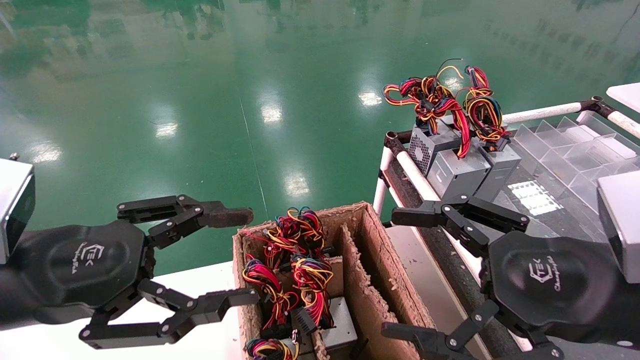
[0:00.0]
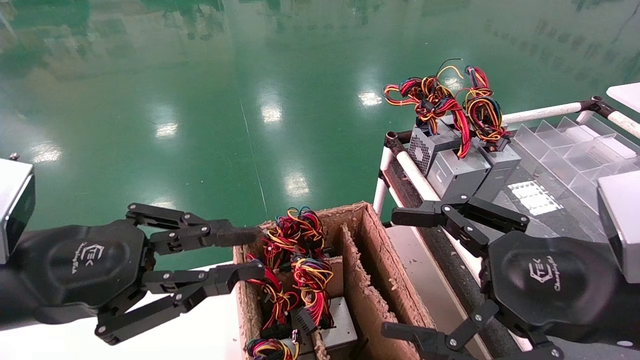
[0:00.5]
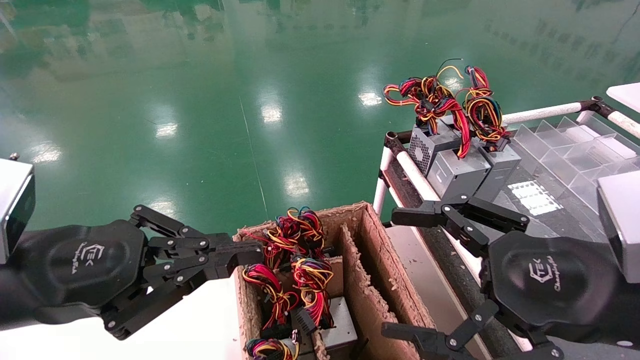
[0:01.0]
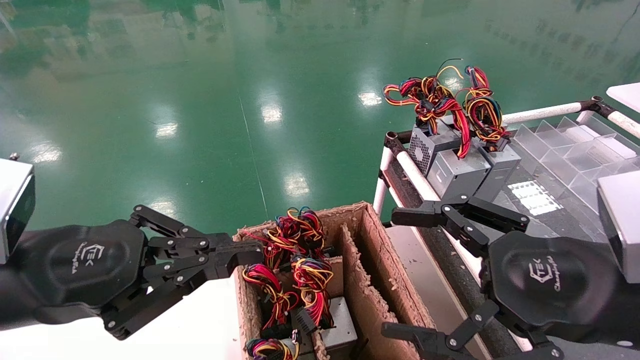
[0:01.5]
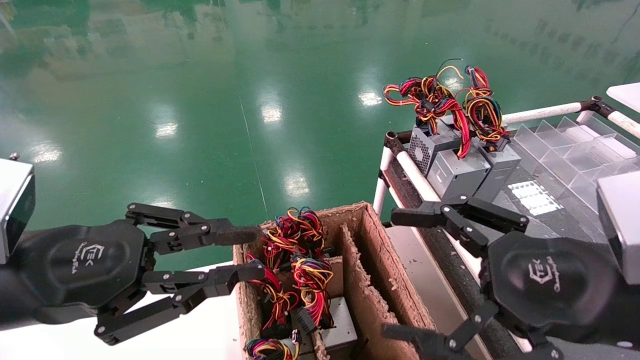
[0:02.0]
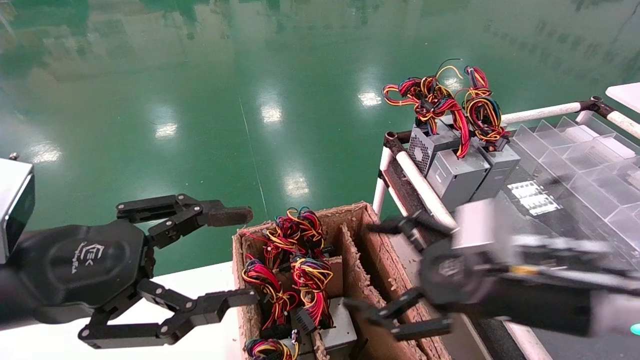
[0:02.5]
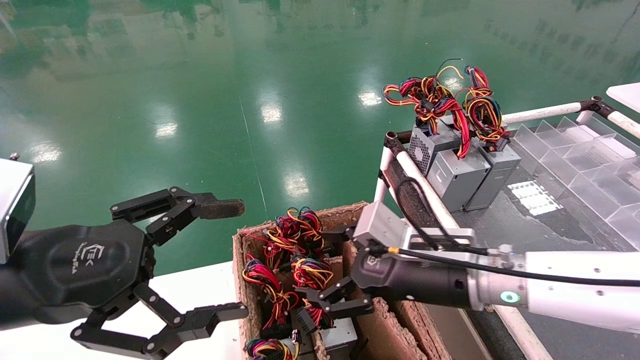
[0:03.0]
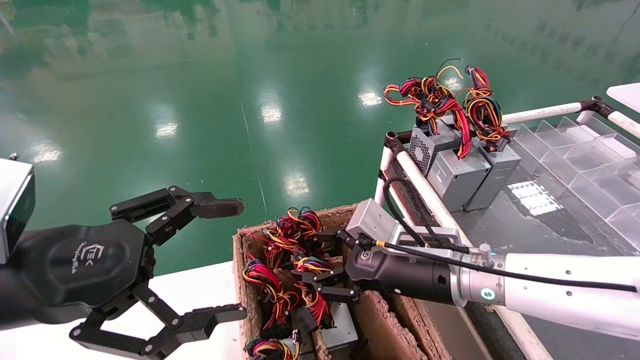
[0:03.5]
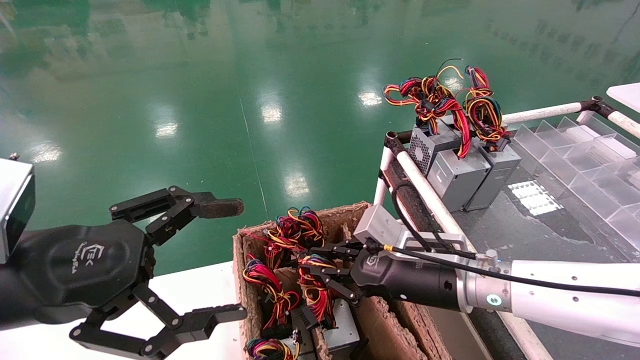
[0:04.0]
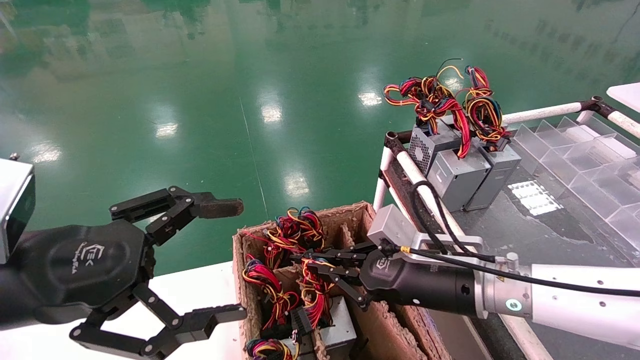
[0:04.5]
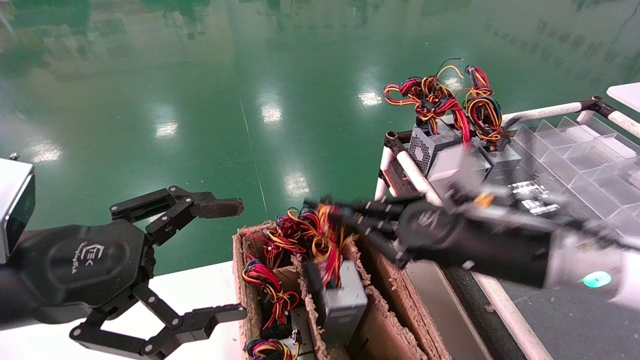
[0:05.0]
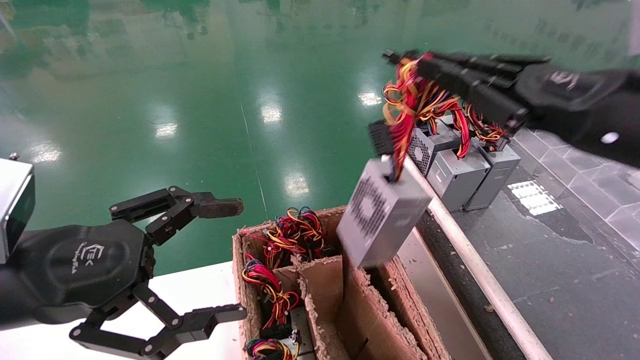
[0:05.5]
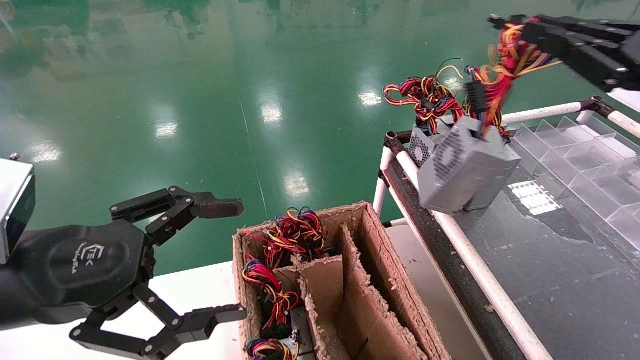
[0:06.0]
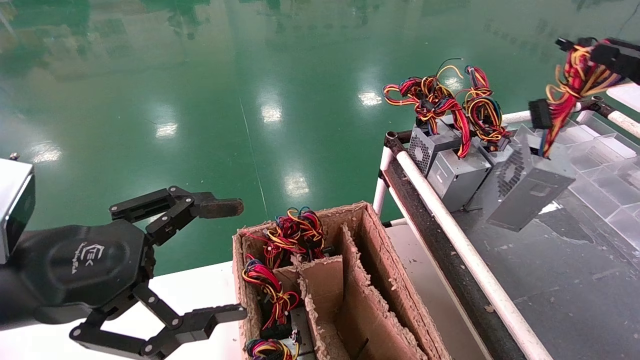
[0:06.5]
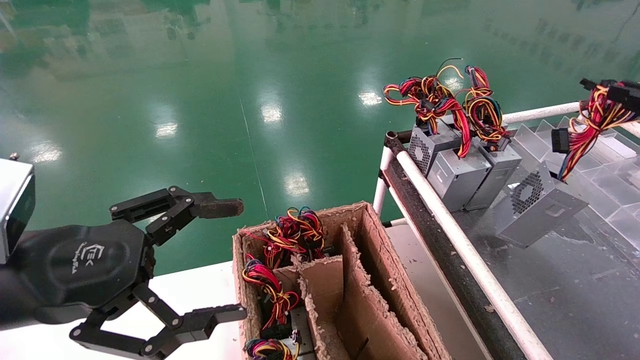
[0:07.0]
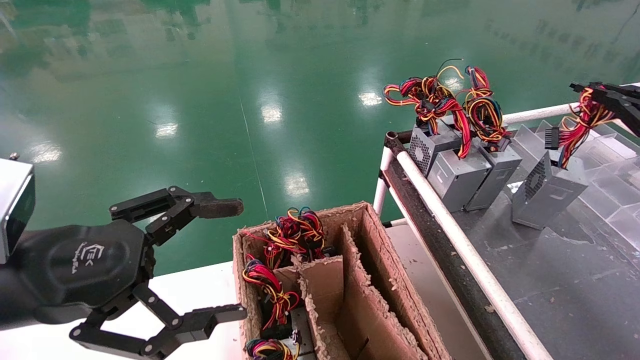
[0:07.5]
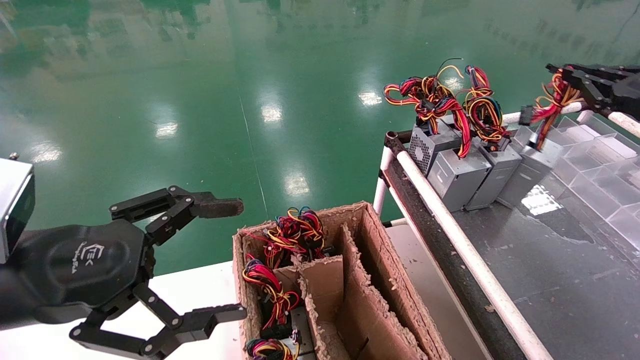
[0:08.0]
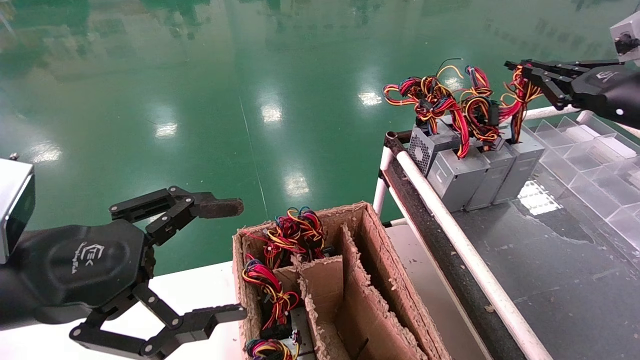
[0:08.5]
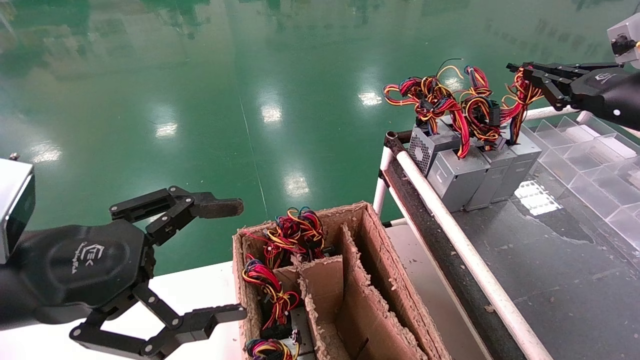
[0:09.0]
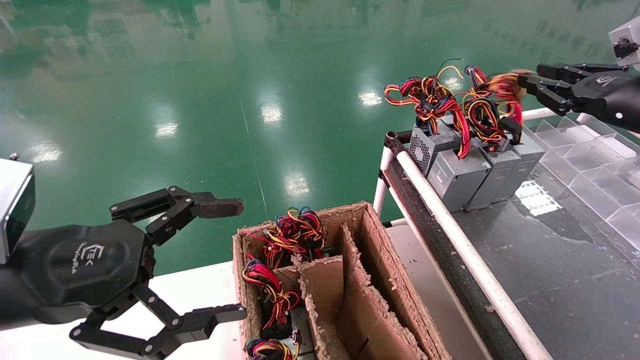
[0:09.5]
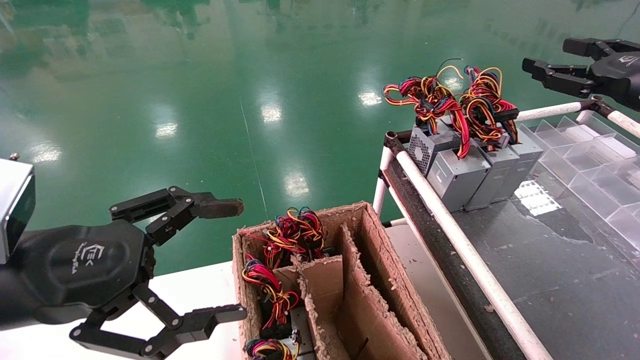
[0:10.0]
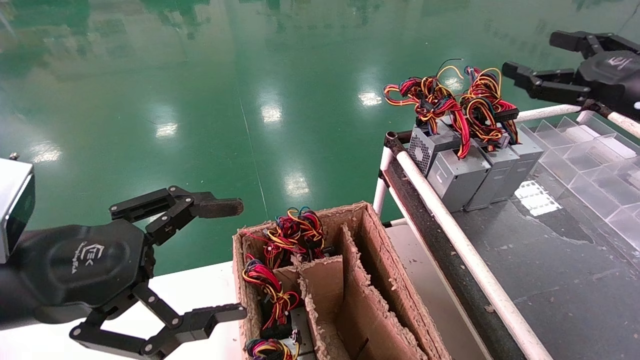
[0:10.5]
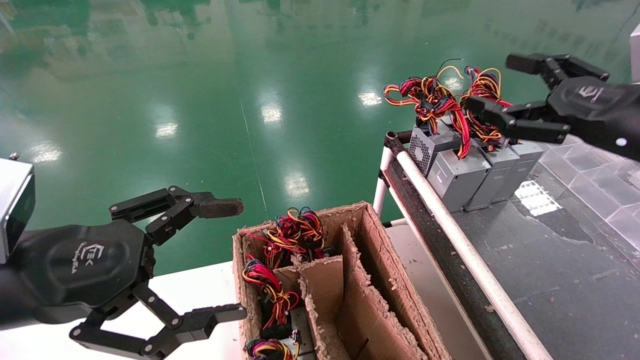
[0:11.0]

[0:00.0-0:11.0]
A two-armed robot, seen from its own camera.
Step, 0:01.5 to 0:04.5: Grab and lift the power supply from the large box.
Step, 0:05.0 to 0:09.5: Place the power supply on the operating table.
0:00.0 to 0:02.0: The left gripper closes.
0:02.0 to 0:03.5: The right gripper moves forward, to the left and downward, some 20 cm; the left gripper opens its fingers.
0:03.5 to 0:05.5: The right gripper goes roughly 25 cm upward and to the right, and closes its fingers.
0:05.5 to 0:07.5: The right gripper travels to the right by about 20 cm.
0:07.5 to 0:09.0: The right gripper moves to the left and forward, about 10 cm.
0:09.0 to 0:11.0: The right gripper goes some 10 cm backward and to the left, and opens.

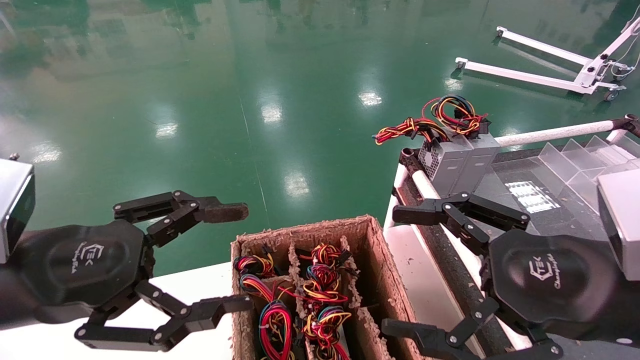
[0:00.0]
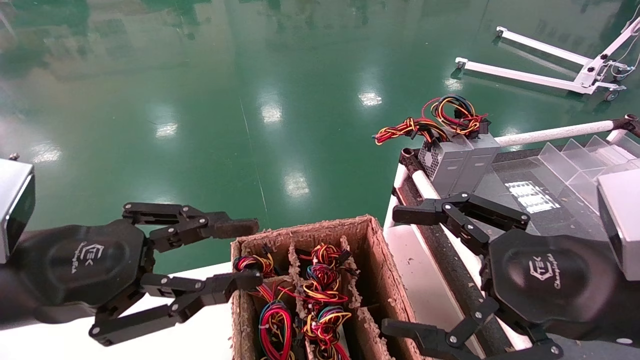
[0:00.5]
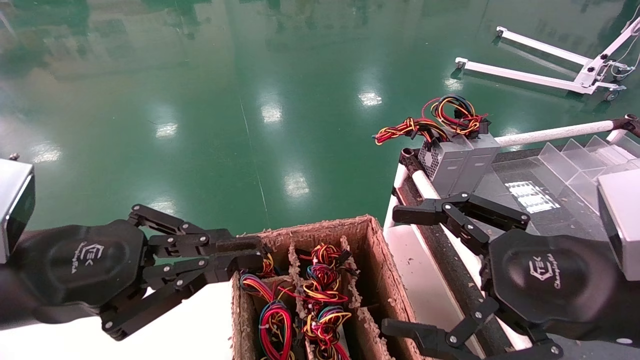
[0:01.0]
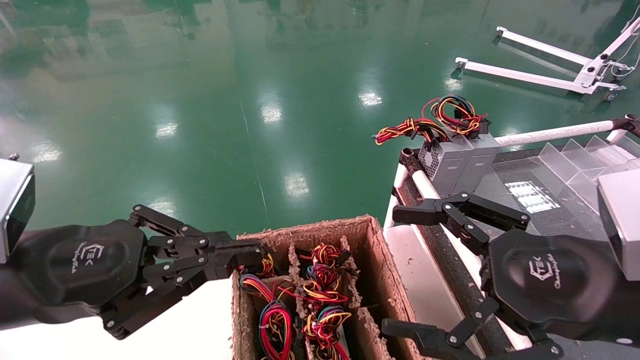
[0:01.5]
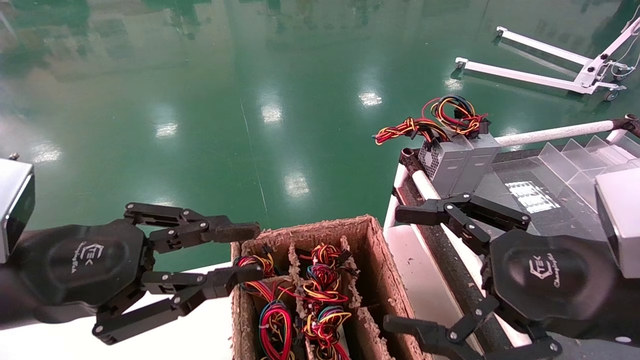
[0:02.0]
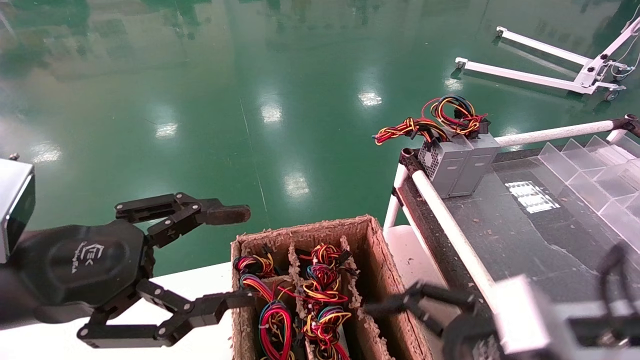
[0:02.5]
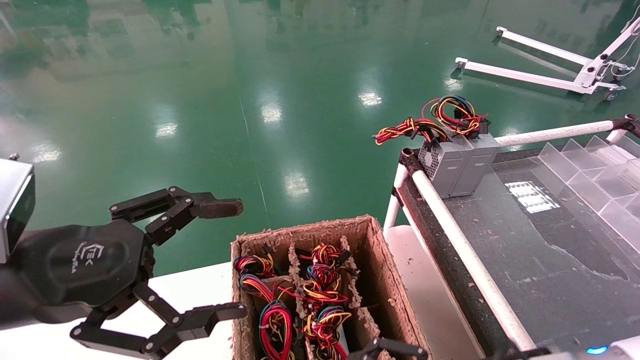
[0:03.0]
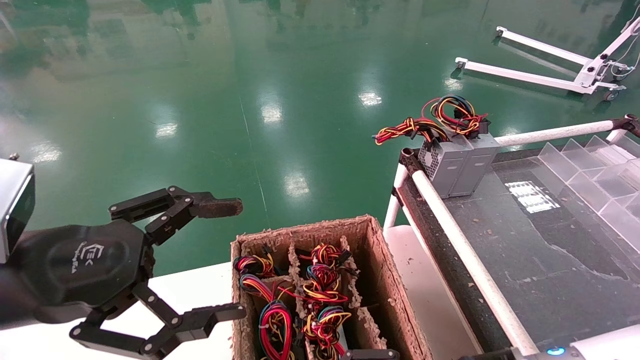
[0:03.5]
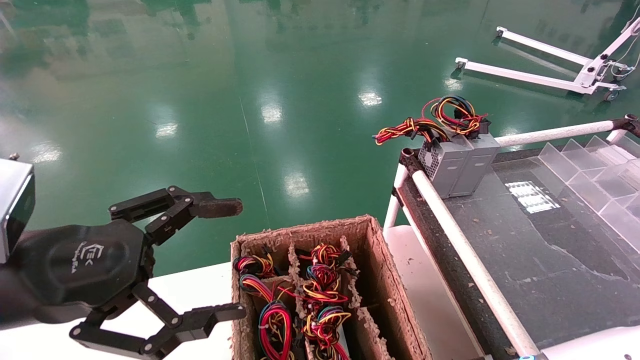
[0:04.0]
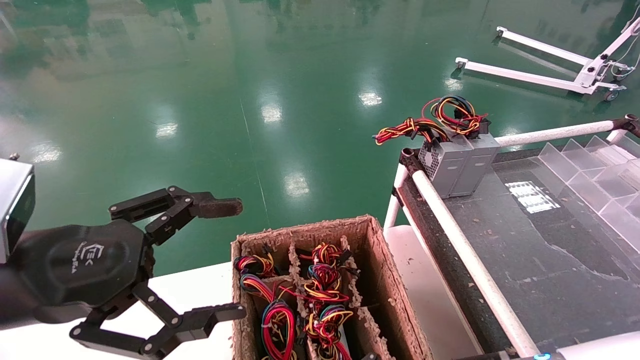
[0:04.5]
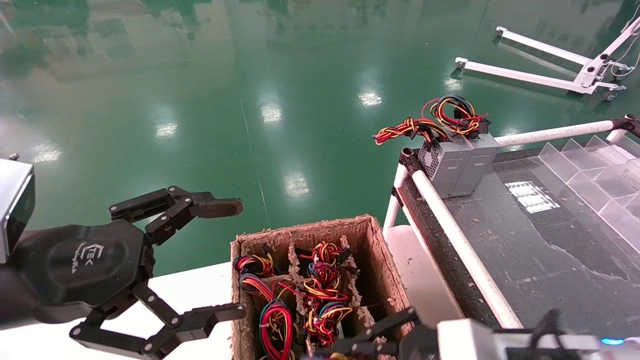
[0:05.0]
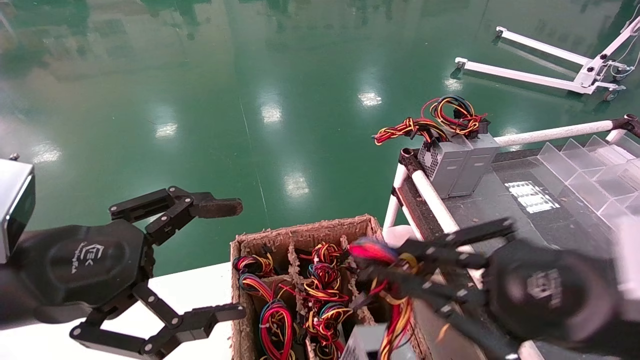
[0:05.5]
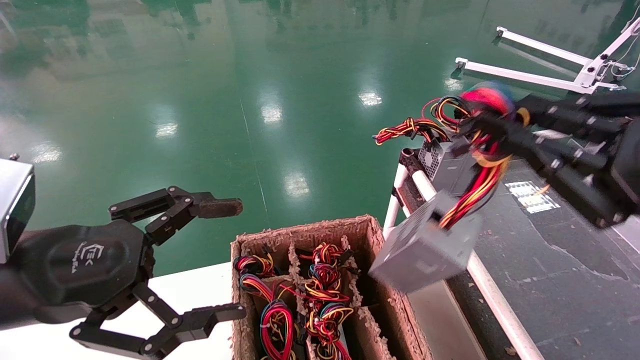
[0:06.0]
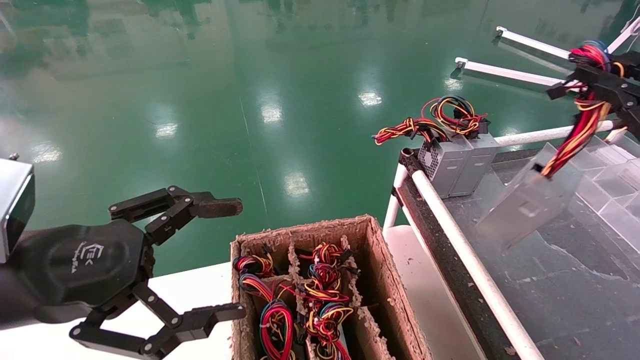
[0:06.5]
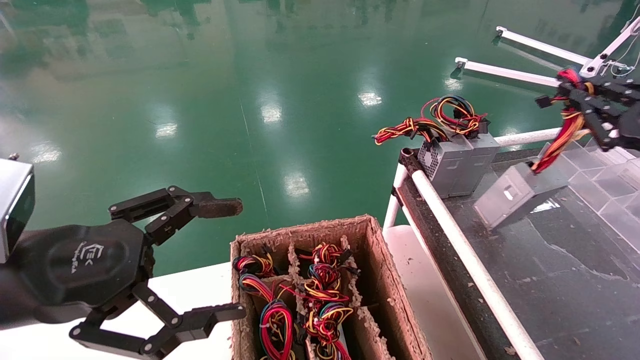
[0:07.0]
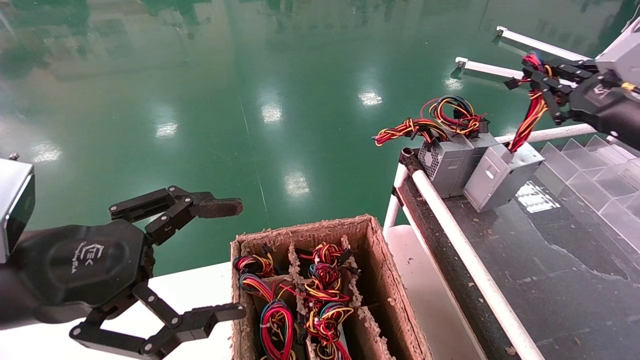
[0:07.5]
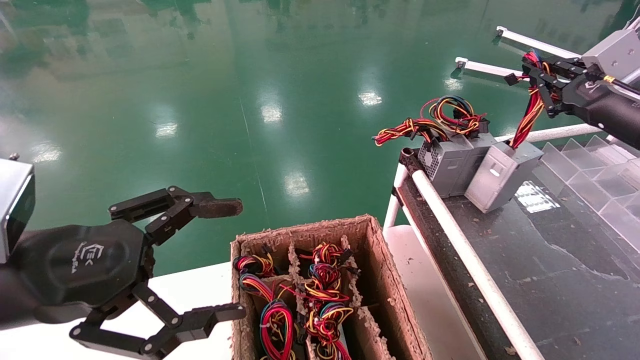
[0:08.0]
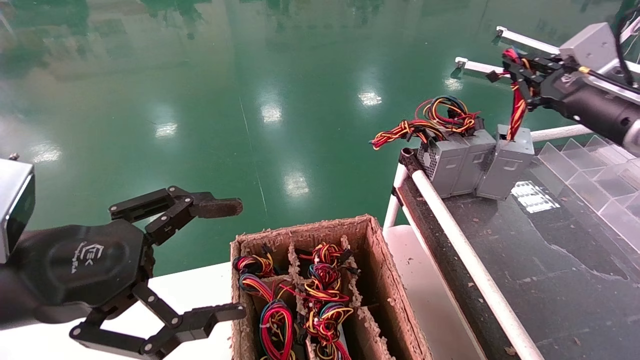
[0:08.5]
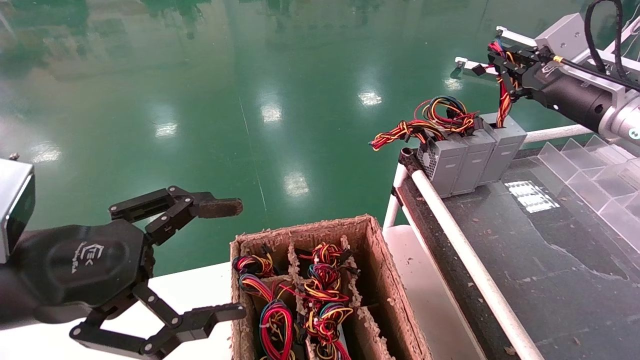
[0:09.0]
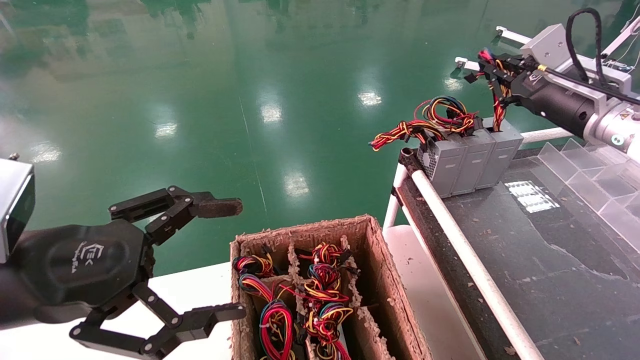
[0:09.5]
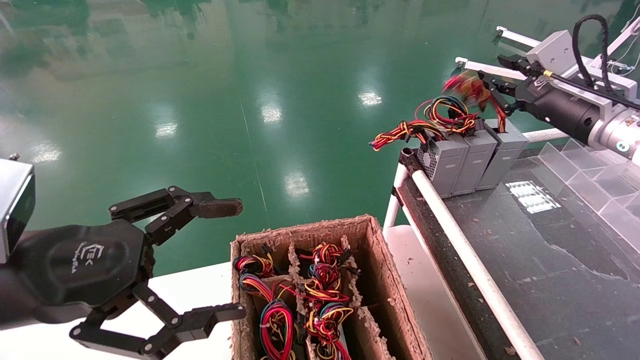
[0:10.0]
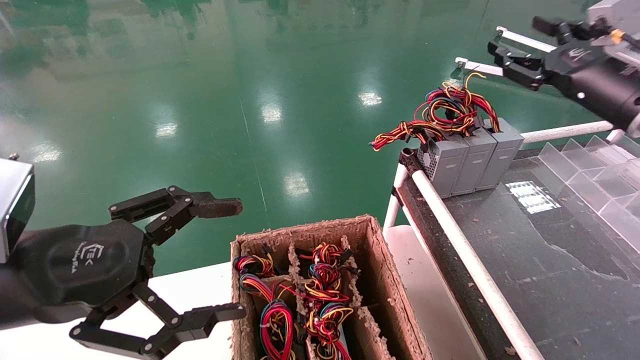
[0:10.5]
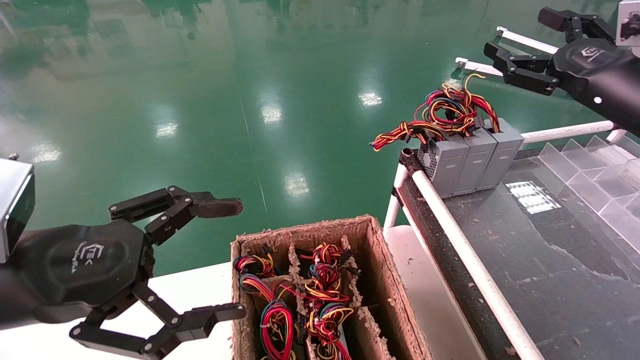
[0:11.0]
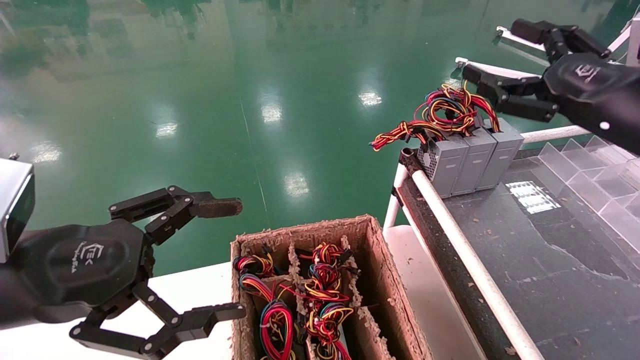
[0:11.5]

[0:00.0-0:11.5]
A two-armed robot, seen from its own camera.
Step, 0:01.5 to 0:04.5: Grab and lift the power supply from the large box.
Step, 0:05.0 to 0:09.5: Place the power supply on the operating table.
0:00.0 to 0:02.0: The left gripper closes its fingers.
0:02.0 to 0:04.0: The right gripper heads downward and to the left, covering approximately 15 cm, and closes its fingers. Meanwhile the left gripper opens its fingers.
0:04.0 to 0:06.0: The right gripper is displaced upward and to the right by approximately 25 cm, and closes up.
0:06.0 to 0:07.5: The right gripper is displaced forward and to the right by approximately 20 cm.
0:07.5 to 0:09.5: The right gripper travels forward and to the left by about 10 cm.
0:09.5 to 0:11.5: The right gripper goes approximately 10 cm backward, and opens up.
